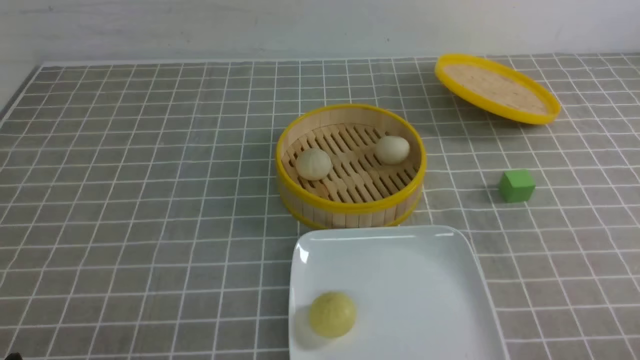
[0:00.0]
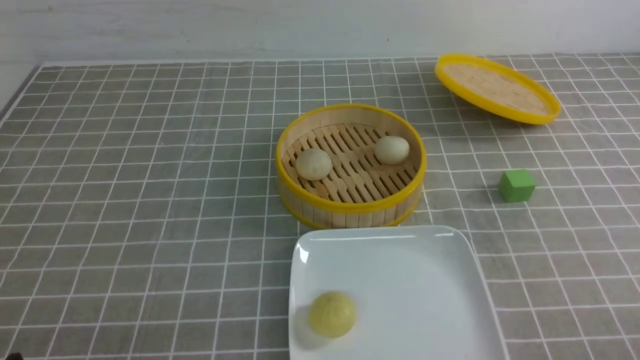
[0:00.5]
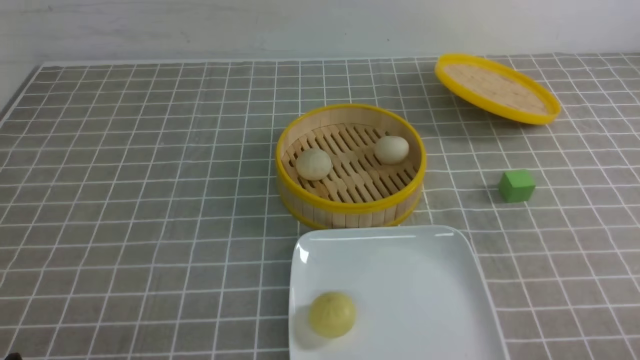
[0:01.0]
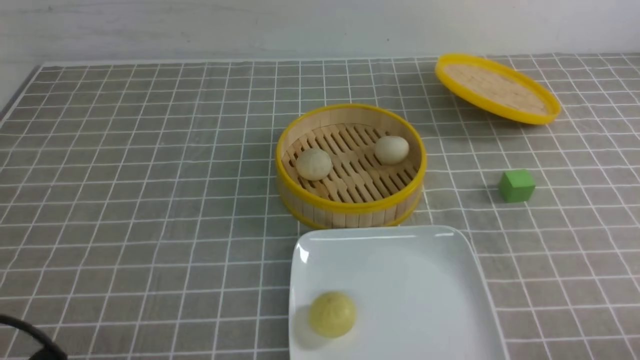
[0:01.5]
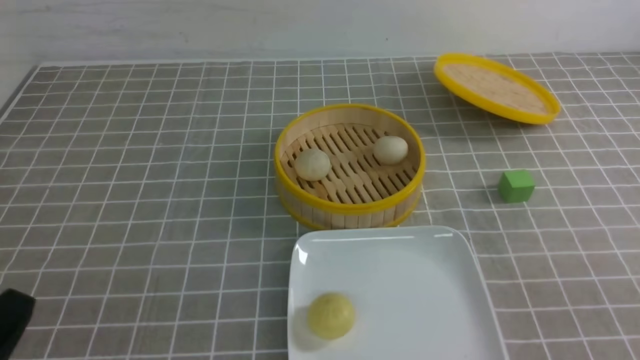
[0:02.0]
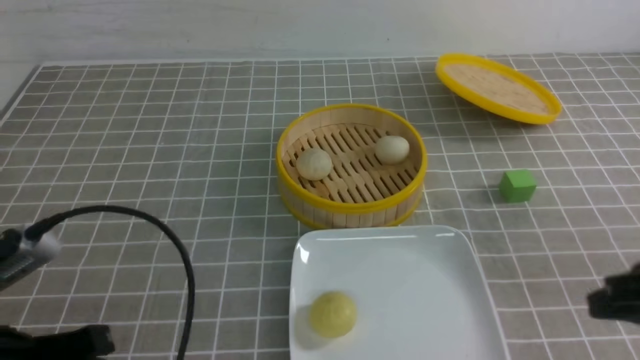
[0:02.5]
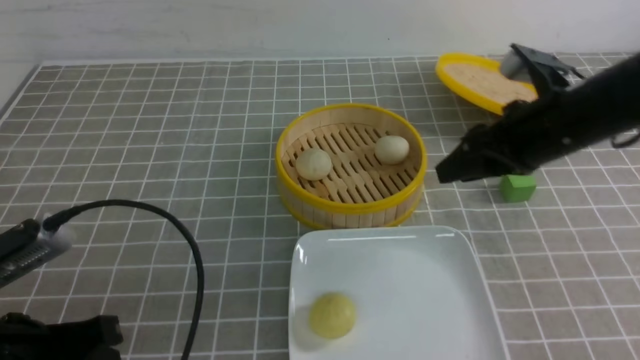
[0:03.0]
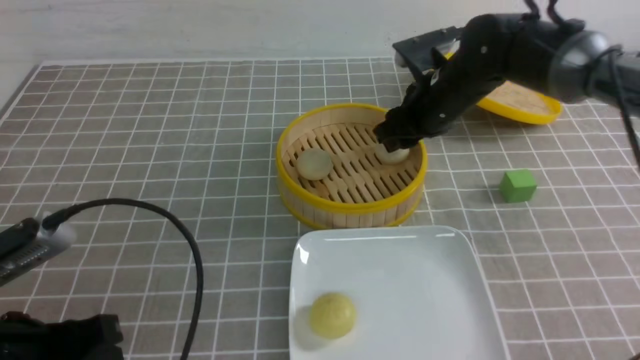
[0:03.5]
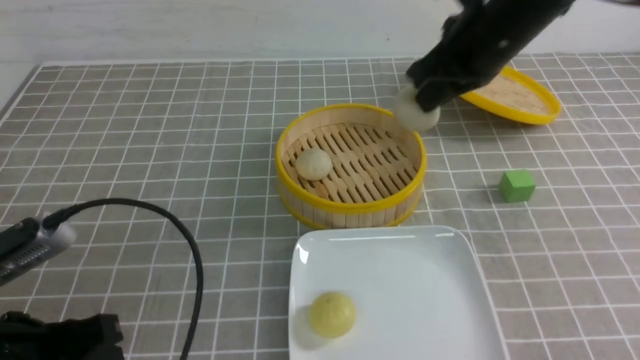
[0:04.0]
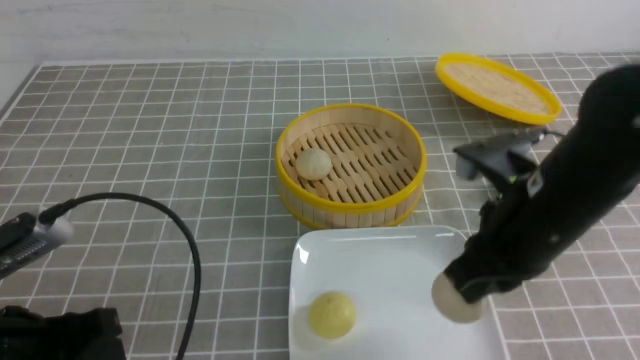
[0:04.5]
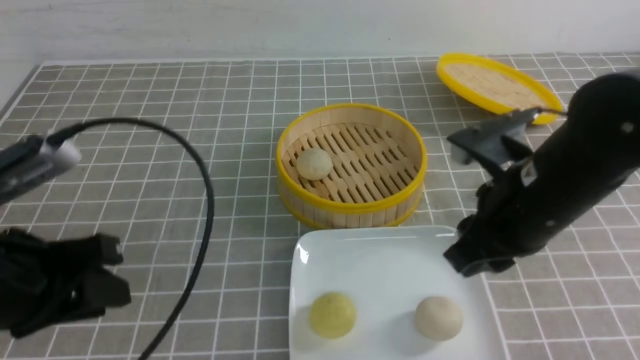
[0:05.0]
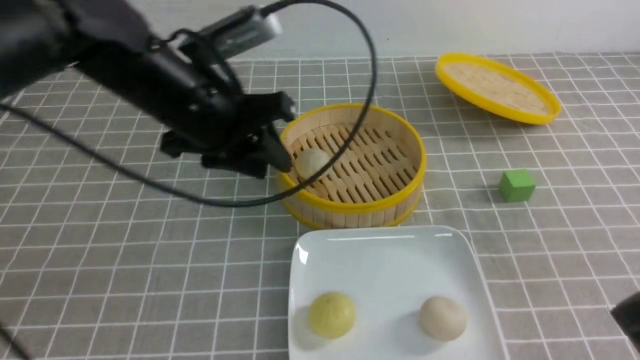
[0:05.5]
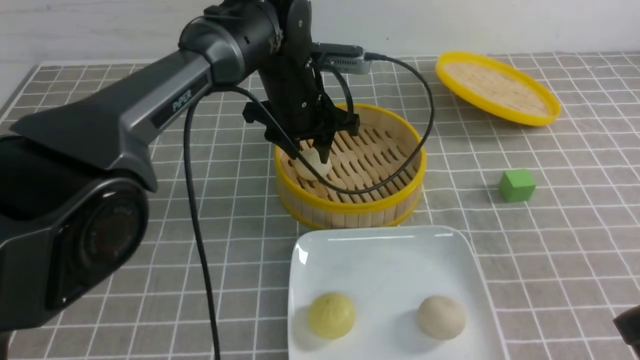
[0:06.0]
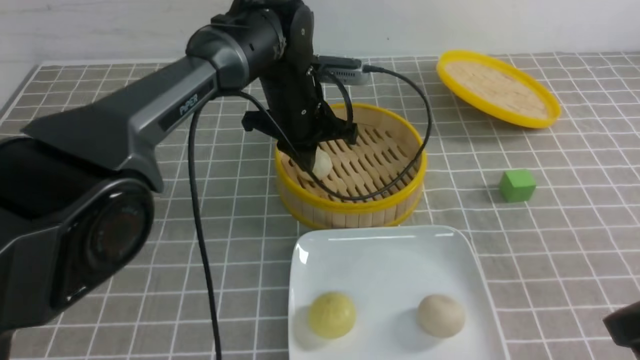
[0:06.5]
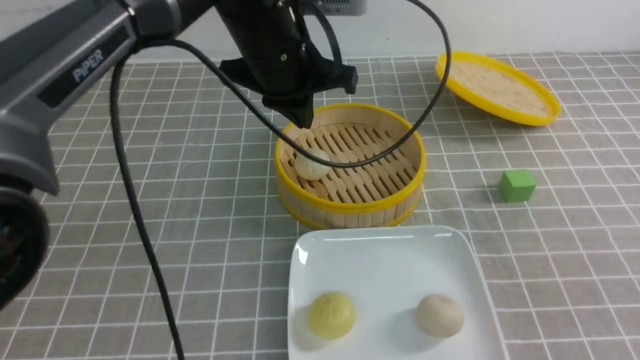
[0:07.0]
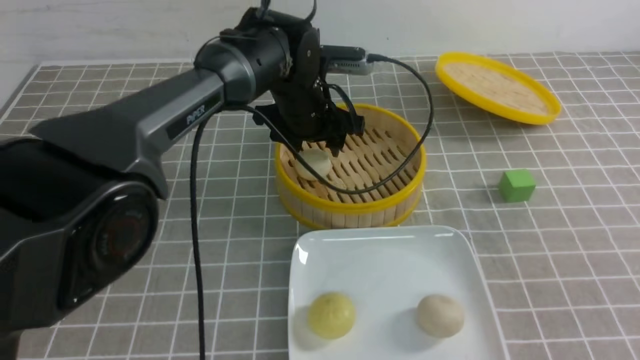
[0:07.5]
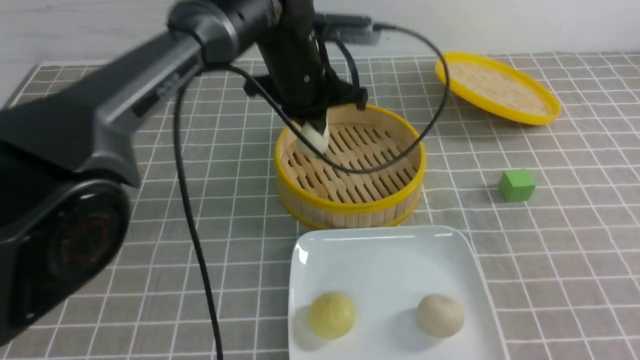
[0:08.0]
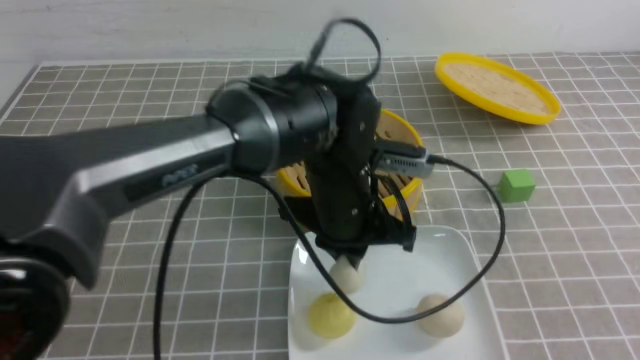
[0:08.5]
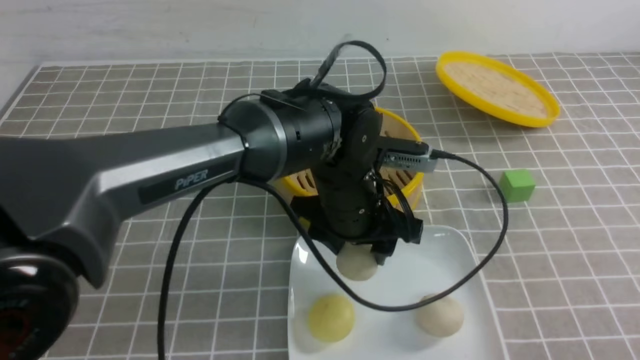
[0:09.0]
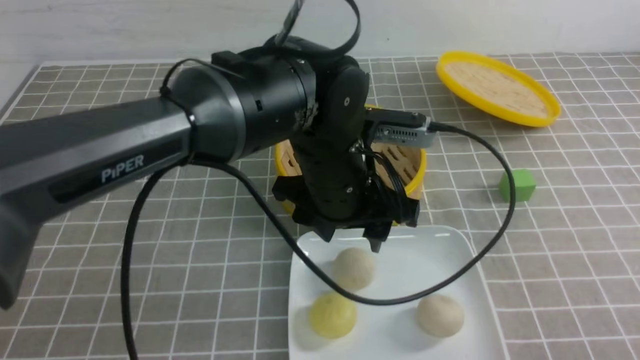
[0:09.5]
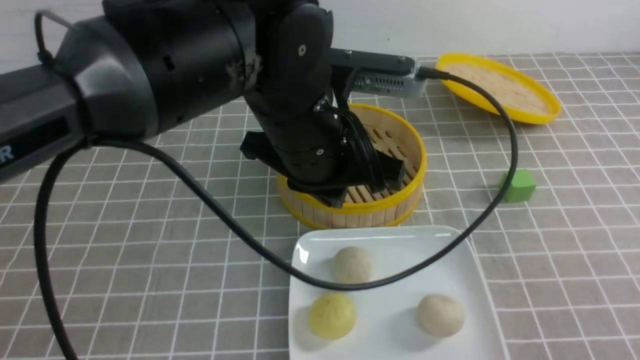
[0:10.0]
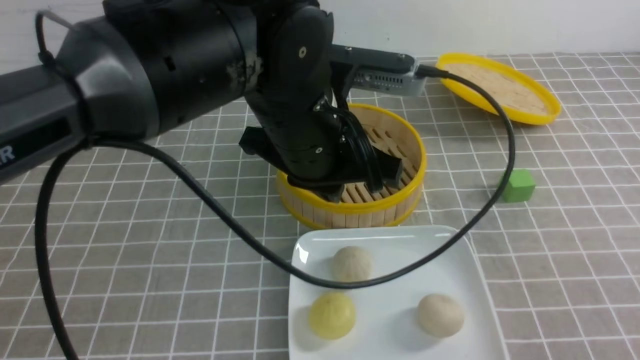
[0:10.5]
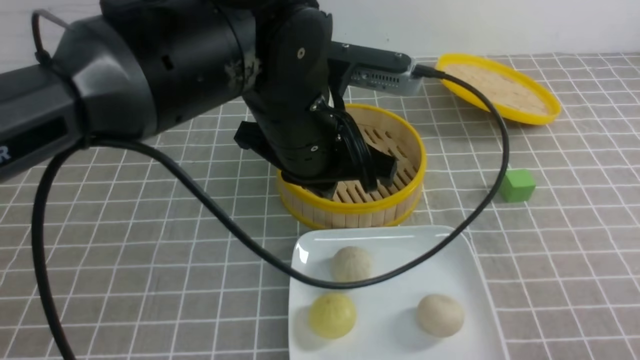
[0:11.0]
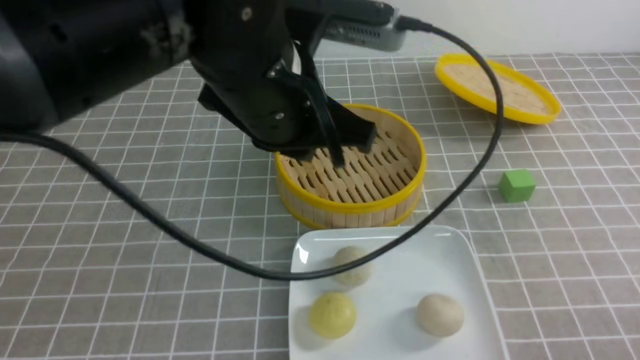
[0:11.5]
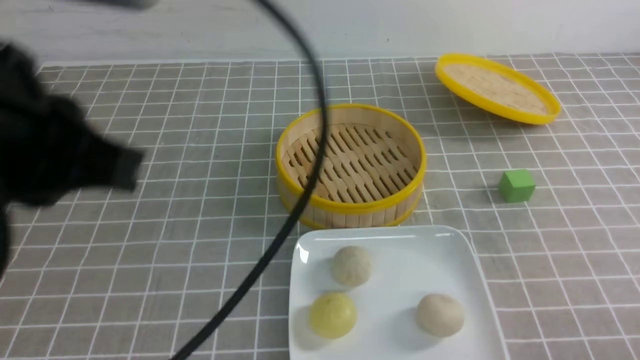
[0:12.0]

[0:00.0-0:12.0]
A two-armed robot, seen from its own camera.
Step, 0:00.0 to 0:03.5: use the right arm to grab the steamed stuffed bun that is closest to it.
Step, 0:04.0 to 0:04.5: use the right arm to put the steamed stuffed bun into the plate.
Step, 0:05.0 to 0:07.5: use the left arm to grab the steamed stuffed bun that is closest to it.
Step, 0:08.0 to 0:09.0: use the left arm to put the steamed stuffed bun into the plate.
0:00.0 to 0:02.0: The left gripper is displaced upward by approximately 5 cm.
0:02.0 to 0:04.0: The left gripper shifts approximately 5 cm forward. Meanwhile the right gripper goes about 35 cm forward and to the left, and opens, then closes once more.
0:04.0 to 0:06.0: The left gripper heads forward and to the right, covering roughly 35 cm; the right gripper goes roughly 25 cm backward, and opens, then closes again.
0:06.0 to 0:08.0: The right gripper heads backward, covering some 5 cm; the left gripper moves up and down over approximately 10 cm, changing direction 2 times, and closes up.
0:08.0 to 0:10.0: The left gripper travels backward by roughly 15 cm, and opens, then closes again. Meanwhile the right gripper moves downward, about 5 cm.
0:10.0 to 0:12.0: The left gripper shifts some 25 cm to the left, backward and upward. The right gripper shifts about 10 cm downward.

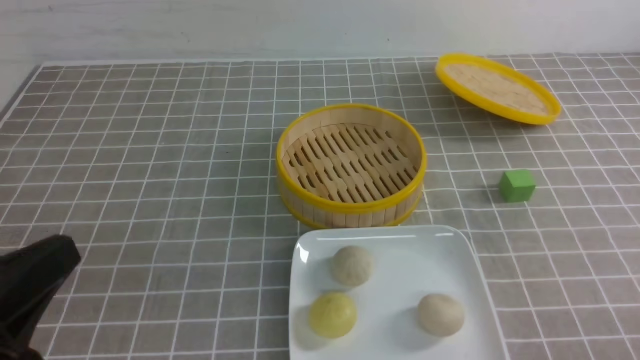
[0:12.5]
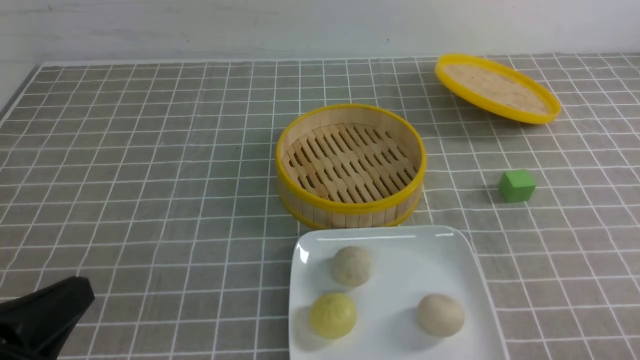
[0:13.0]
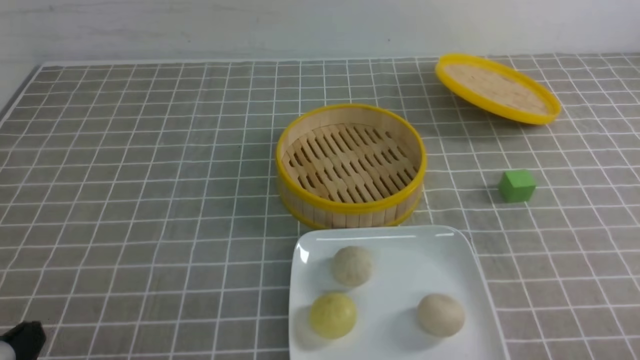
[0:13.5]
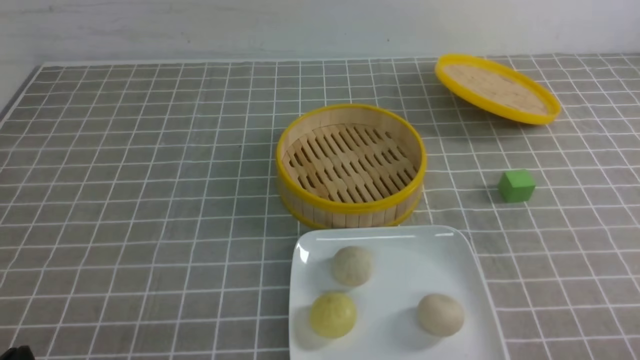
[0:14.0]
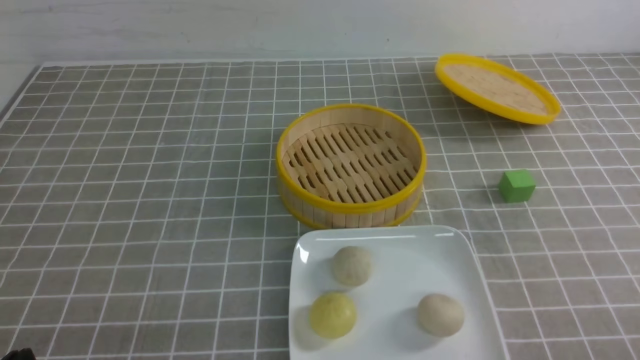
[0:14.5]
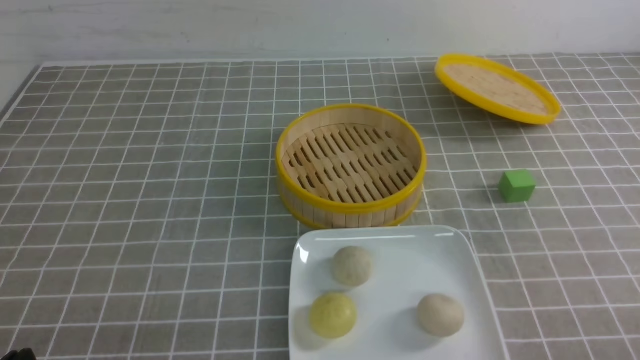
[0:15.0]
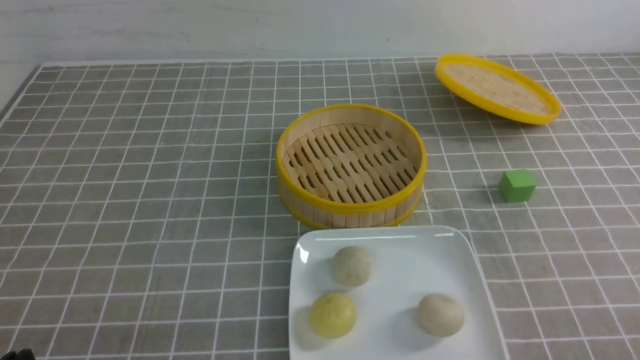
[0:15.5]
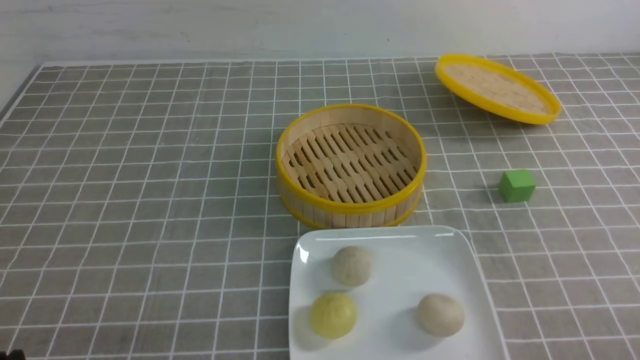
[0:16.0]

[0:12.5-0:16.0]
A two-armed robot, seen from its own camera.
0:12.5 to 0:14.5: The left gripper heads downward, covering roughly 15 cm.
0:14.5 to 0:16.0: Both grippers stay put.

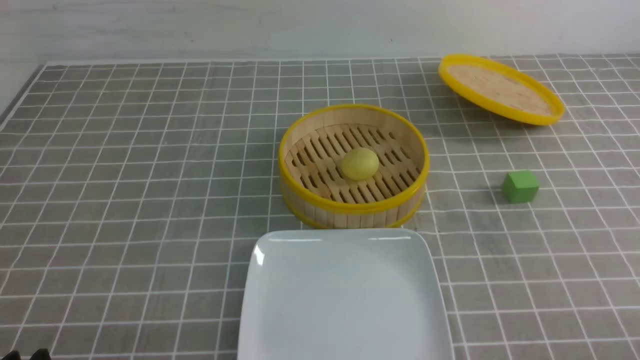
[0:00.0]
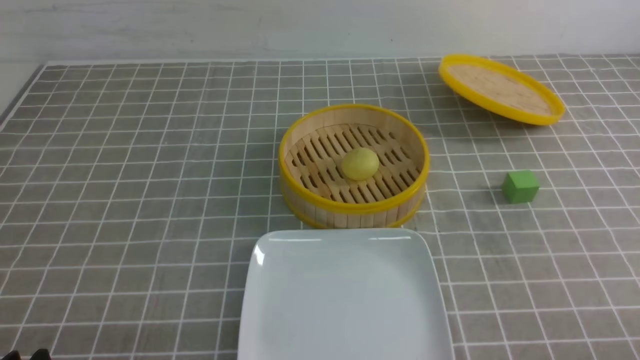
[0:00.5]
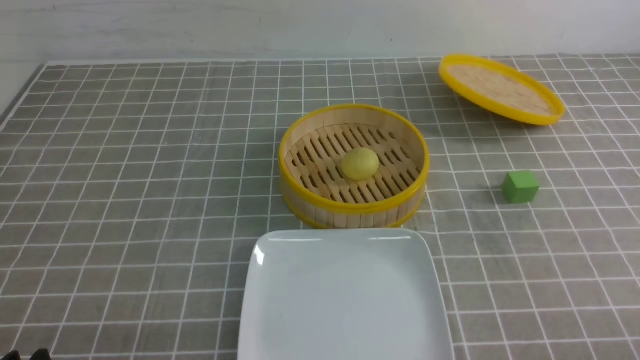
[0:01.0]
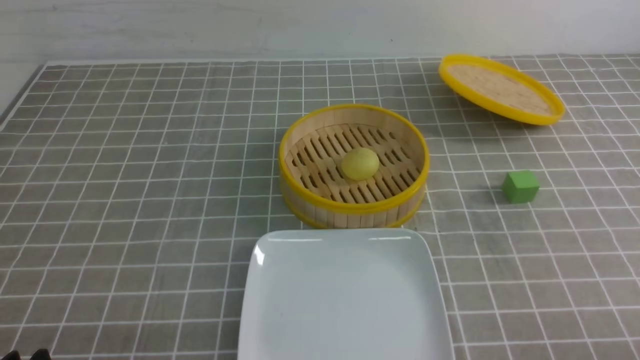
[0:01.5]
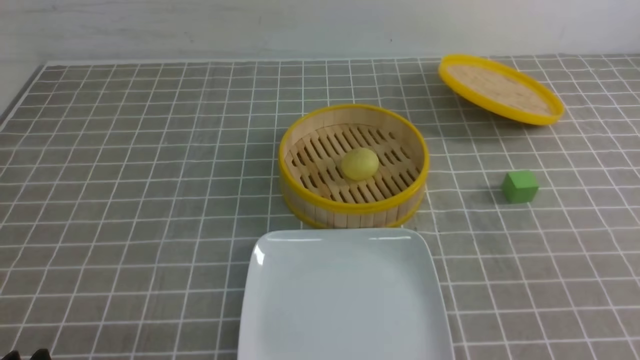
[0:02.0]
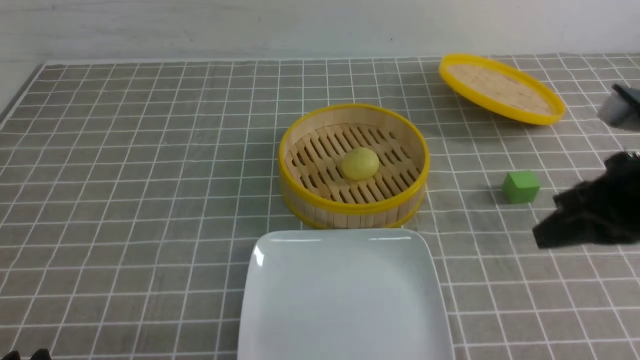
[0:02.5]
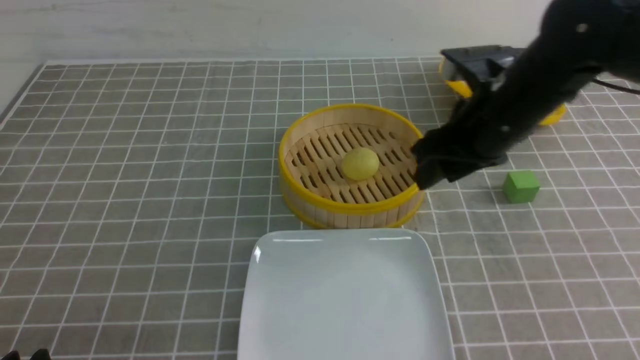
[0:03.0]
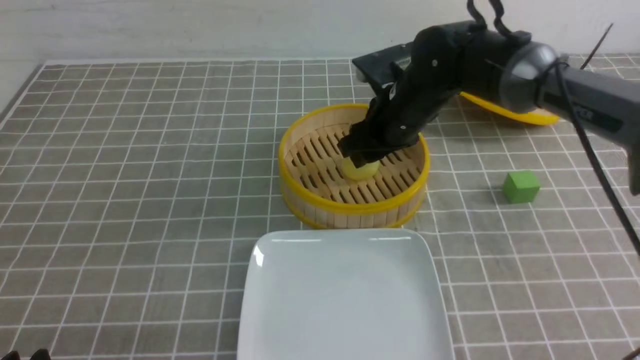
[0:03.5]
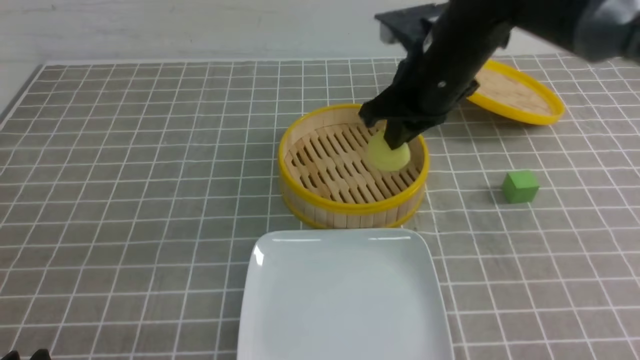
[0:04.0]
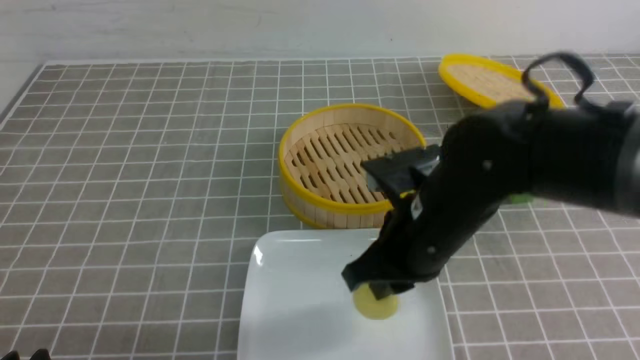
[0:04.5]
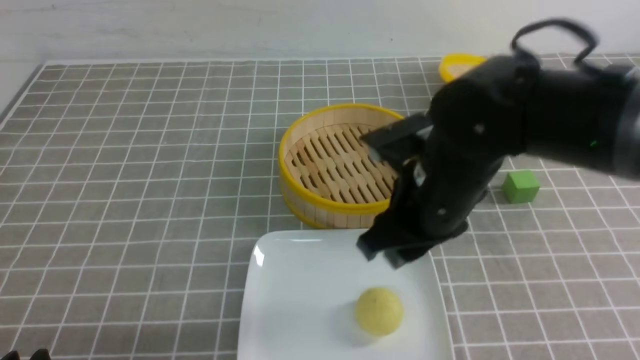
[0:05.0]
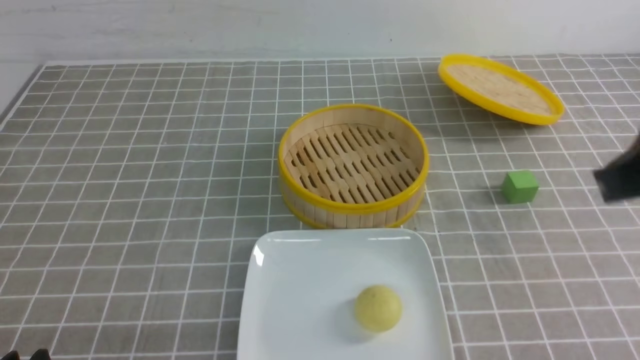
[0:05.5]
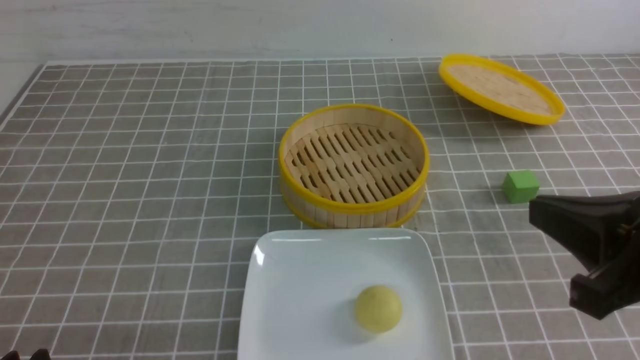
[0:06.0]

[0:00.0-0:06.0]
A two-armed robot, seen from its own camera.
Step, 0:00.0 to 0:03.5: use the right arm to grab the steamed stuffed bun that is closest to it.
Step, 0:04.0 to 0:04.5: use the right arm to put the steamed stuffed bun into the plate.
0:02.0 to 0:04.0: The right gripper travels forward and to the left by roughly 35 cm, and opens, then closes once more.
0:04.0 to 0:06.0: The right gripper moves backward and to the right, roughly 25 cm, and opens, then closes again.
